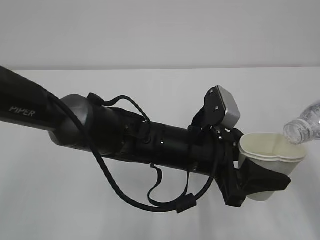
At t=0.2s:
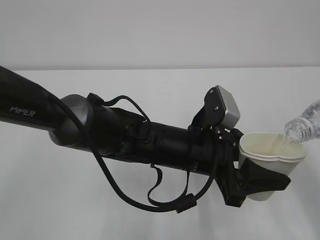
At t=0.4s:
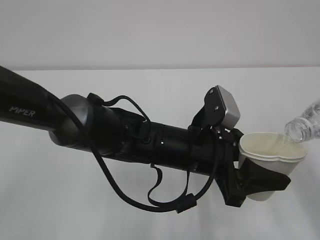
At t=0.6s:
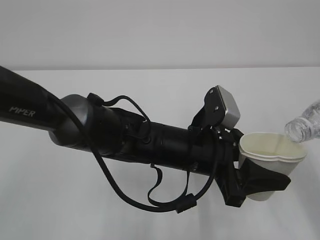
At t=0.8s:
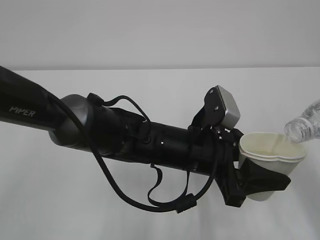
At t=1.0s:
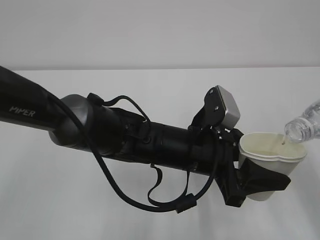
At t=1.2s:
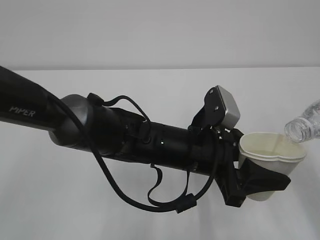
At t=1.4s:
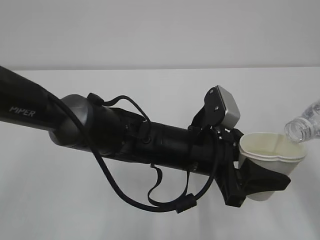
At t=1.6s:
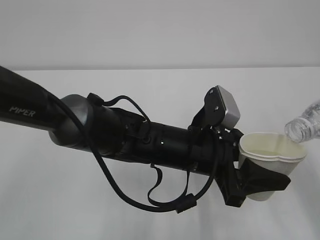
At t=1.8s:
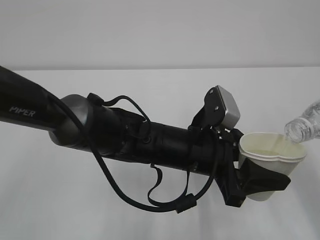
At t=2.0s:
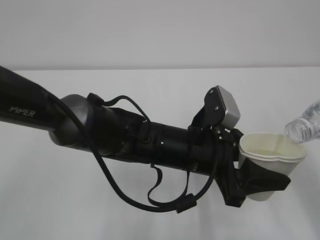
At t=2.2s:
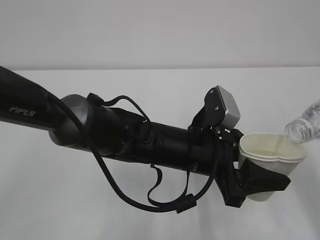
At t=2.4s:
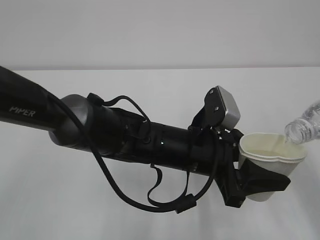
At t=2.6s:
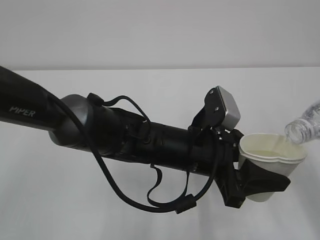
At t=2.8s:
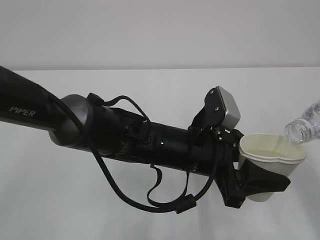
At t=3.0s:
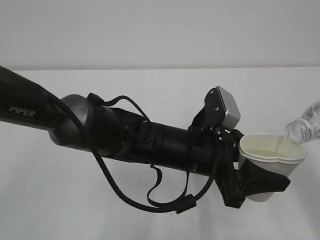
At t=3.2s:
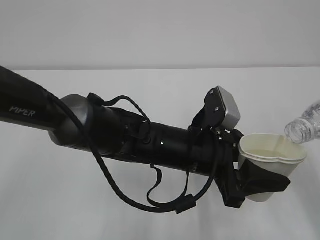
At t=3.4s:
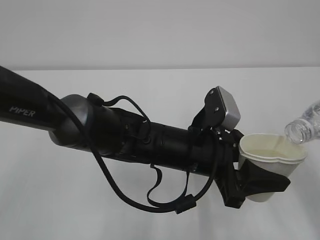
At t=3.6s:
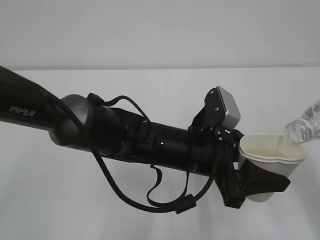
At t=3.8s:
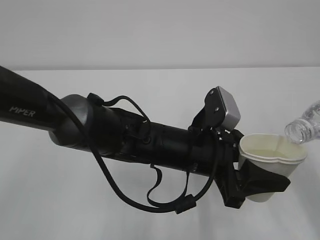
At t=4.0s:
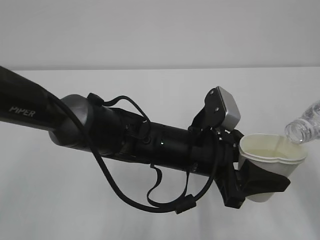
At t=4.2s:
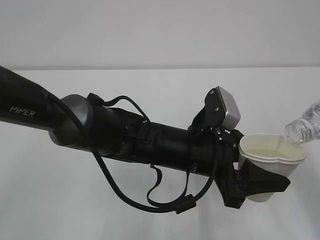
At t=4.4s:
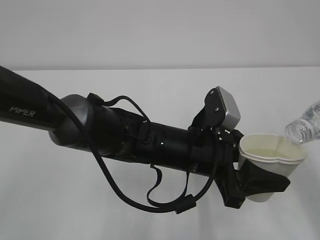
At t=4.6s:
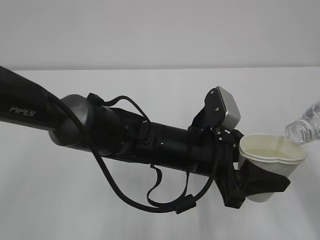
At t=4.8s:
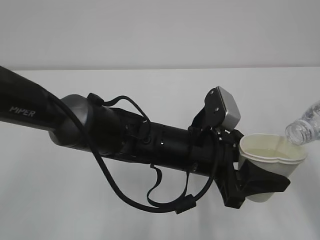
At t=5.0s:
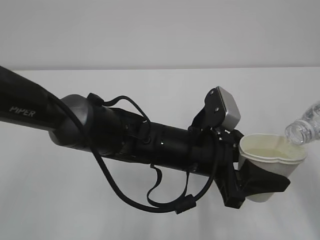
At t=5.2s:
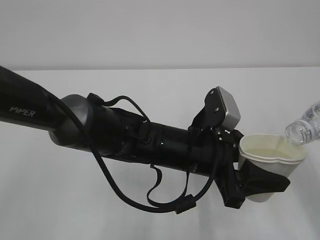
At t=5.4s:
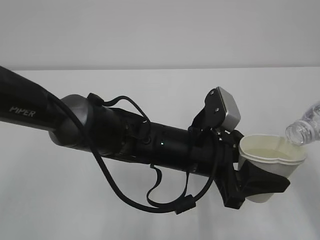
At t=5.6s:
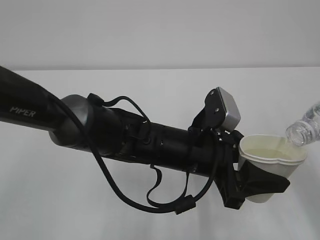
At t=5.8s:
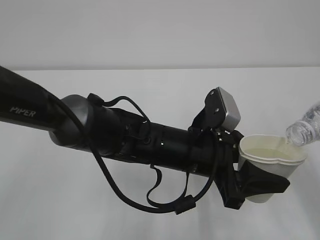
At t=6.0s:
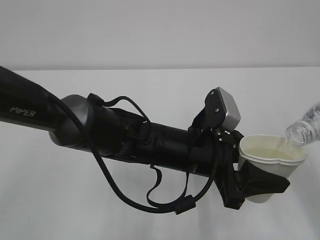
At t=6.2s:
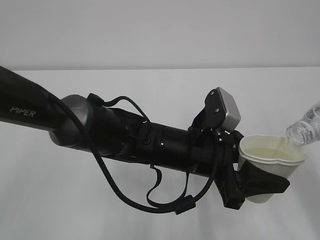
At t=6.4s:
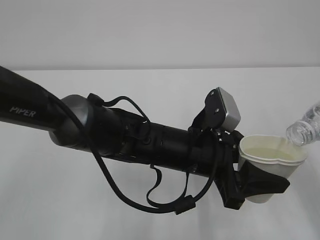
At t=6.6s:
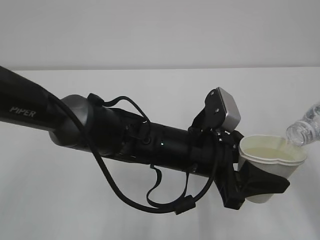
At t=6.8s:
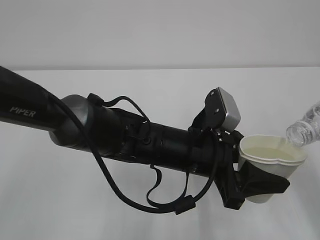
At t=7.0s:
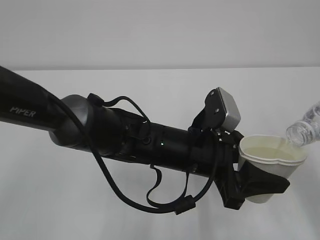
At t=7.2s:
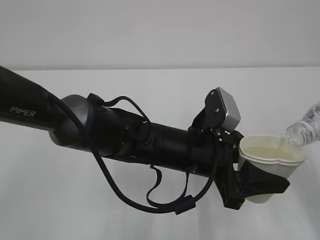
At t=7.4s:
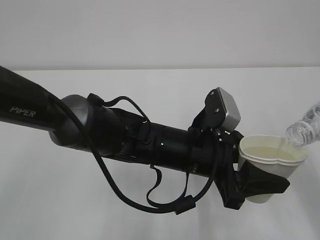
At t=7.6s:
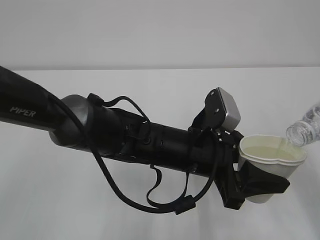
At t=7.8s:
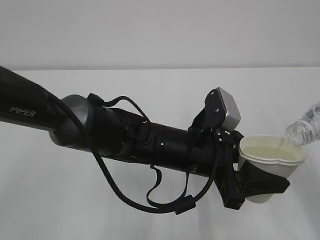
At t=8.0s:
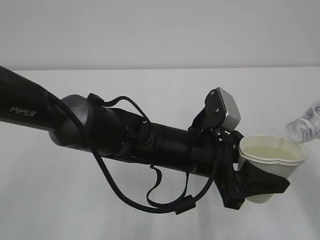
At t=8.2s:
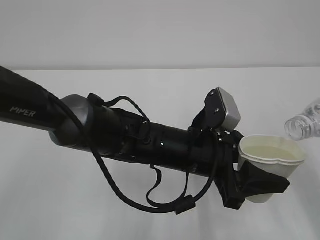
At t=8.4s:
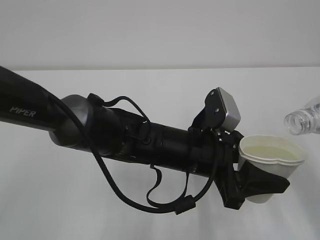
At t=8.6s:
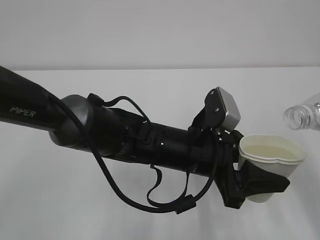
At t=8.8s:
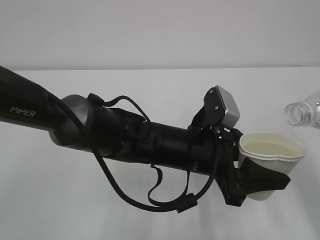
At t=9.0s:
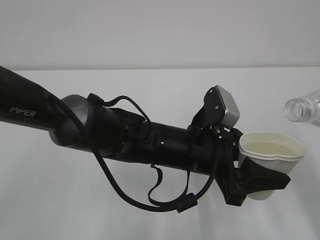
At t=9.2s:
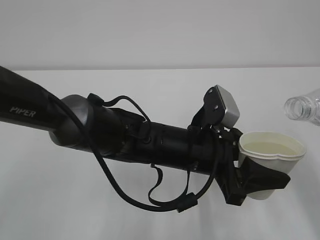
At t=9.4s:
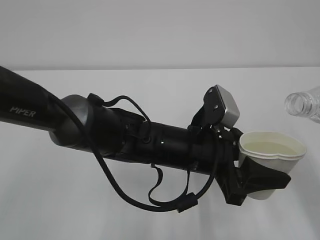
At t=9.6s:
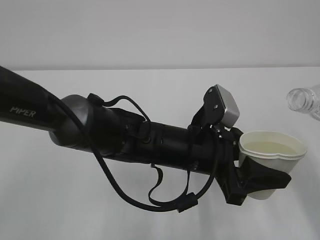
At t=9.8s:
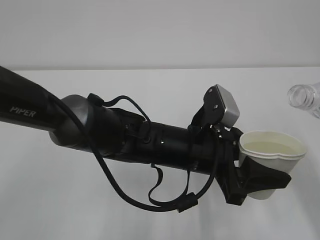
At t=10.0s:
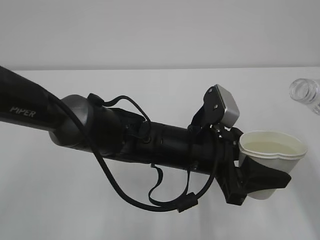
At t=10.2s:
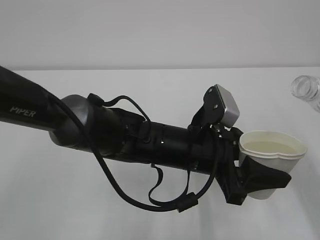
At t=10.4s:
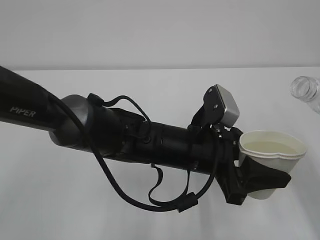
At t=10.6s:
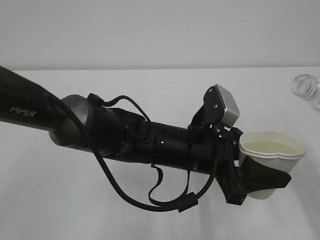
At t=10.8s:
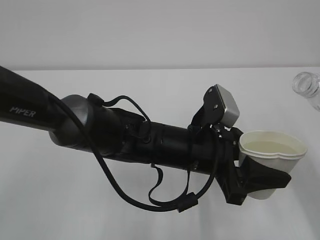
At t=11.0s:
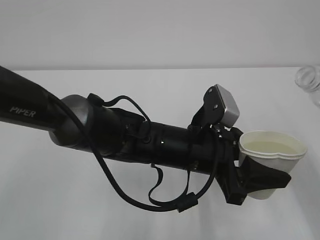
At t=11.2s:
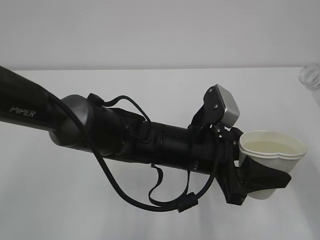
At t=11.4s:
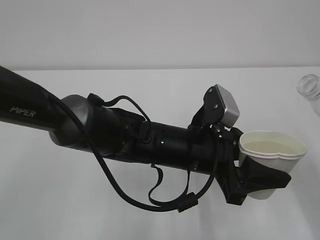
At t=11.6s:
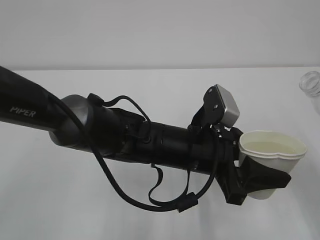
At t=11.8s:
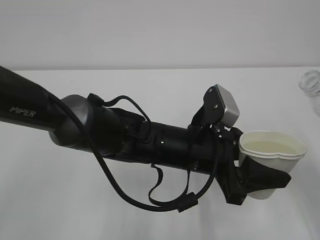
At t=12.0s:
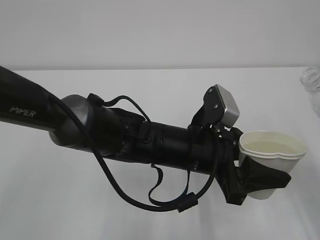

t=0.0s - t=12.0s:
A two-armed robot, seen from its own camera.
t=0.0s - t=7.6s: Both grippers stay put.
t=7.6s - t=9.0s: The grippers stay close to where they were, moving slightly.
t=9.0s - t=10.4s: The grippers stay close to where they were, moving slightly.

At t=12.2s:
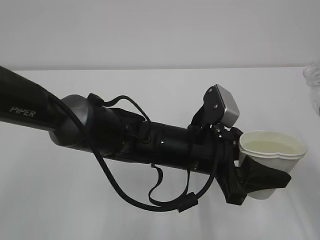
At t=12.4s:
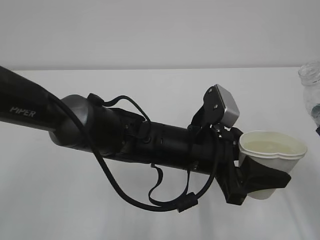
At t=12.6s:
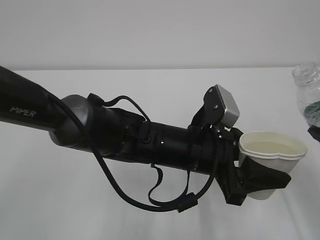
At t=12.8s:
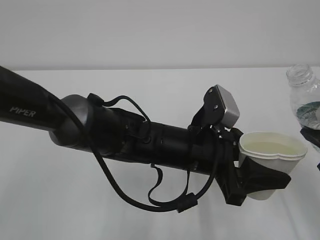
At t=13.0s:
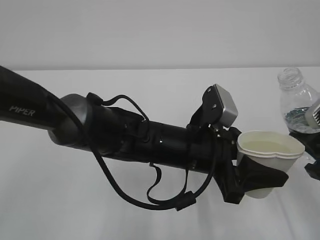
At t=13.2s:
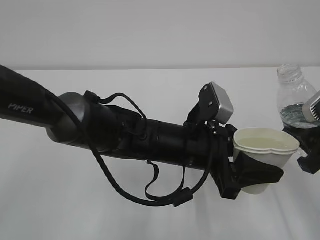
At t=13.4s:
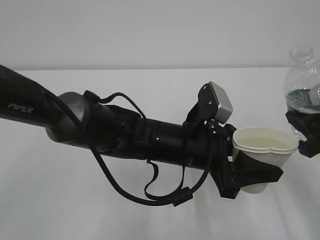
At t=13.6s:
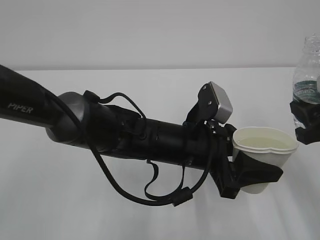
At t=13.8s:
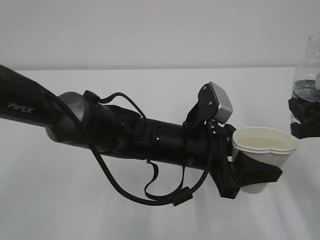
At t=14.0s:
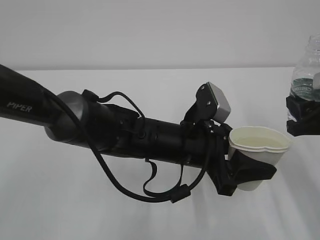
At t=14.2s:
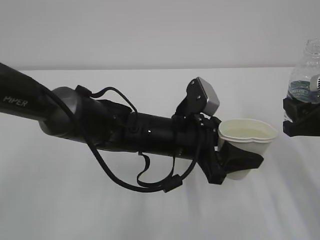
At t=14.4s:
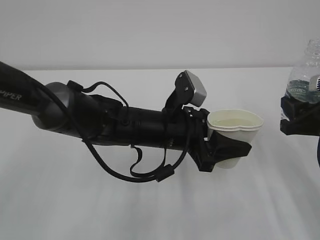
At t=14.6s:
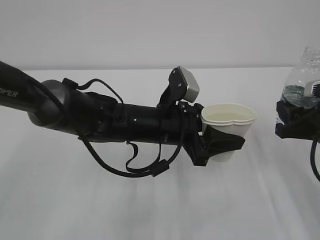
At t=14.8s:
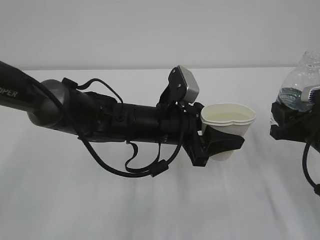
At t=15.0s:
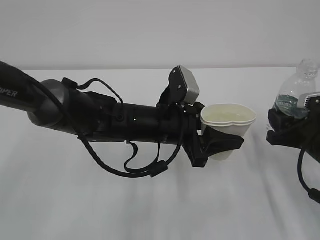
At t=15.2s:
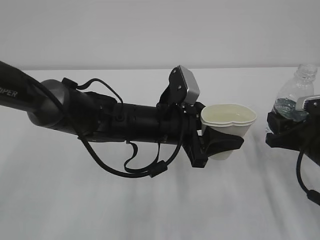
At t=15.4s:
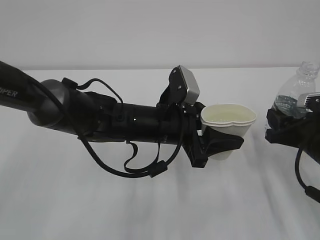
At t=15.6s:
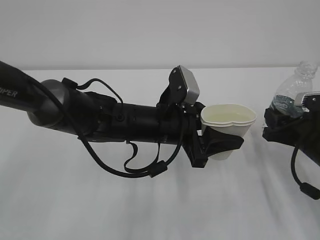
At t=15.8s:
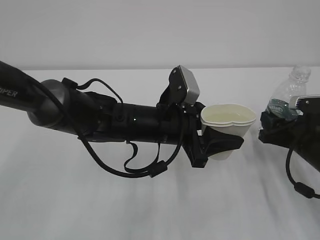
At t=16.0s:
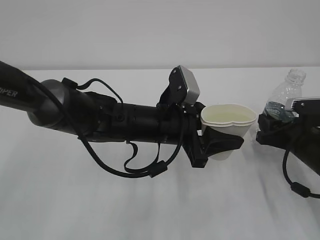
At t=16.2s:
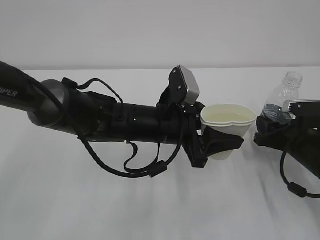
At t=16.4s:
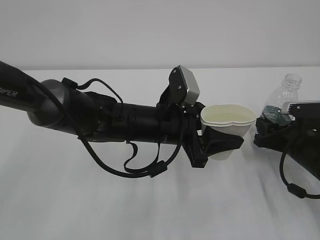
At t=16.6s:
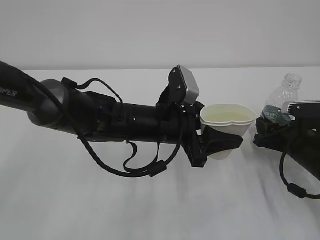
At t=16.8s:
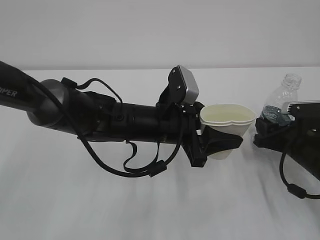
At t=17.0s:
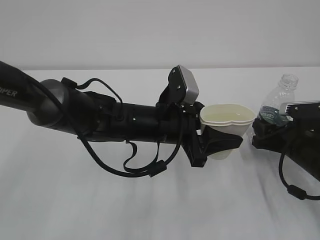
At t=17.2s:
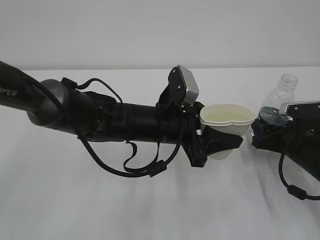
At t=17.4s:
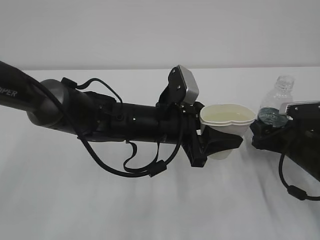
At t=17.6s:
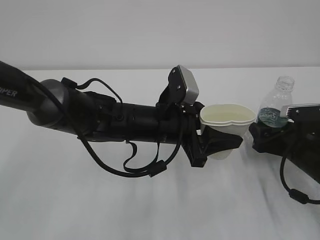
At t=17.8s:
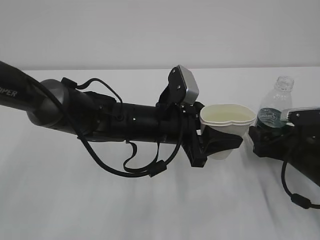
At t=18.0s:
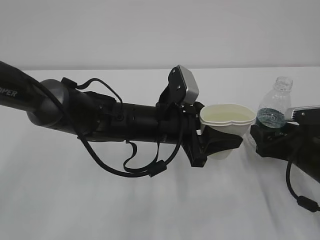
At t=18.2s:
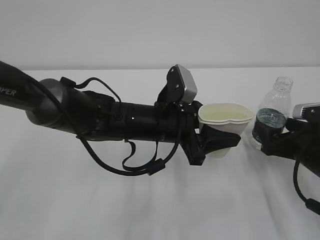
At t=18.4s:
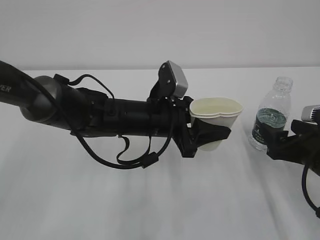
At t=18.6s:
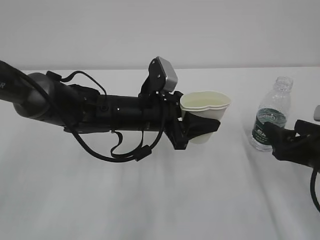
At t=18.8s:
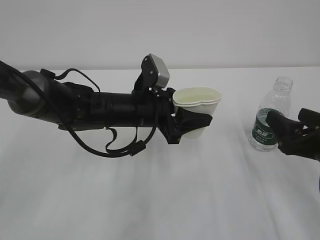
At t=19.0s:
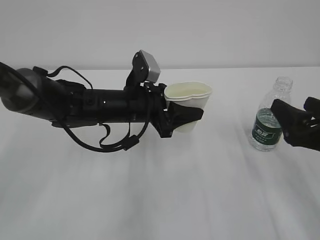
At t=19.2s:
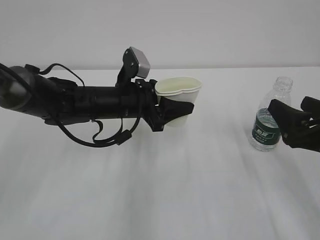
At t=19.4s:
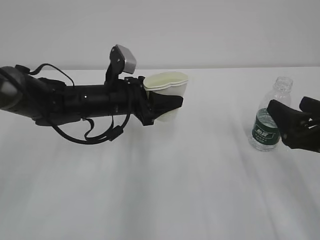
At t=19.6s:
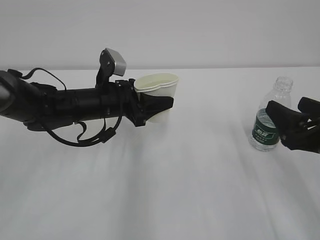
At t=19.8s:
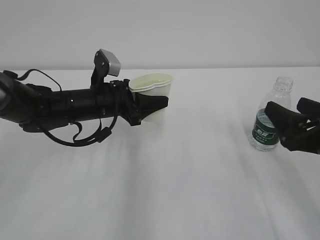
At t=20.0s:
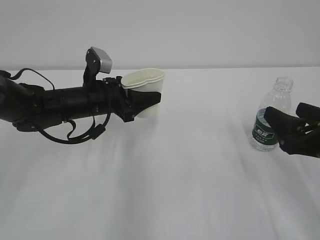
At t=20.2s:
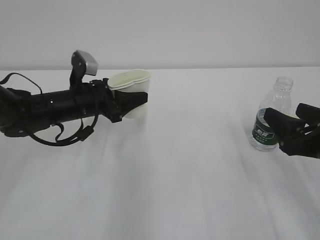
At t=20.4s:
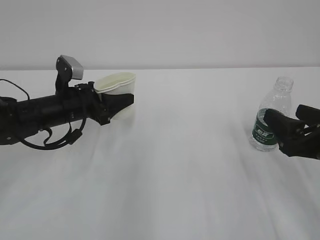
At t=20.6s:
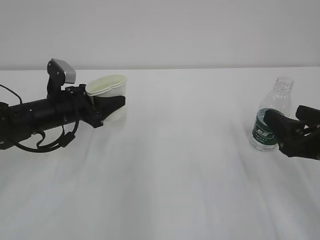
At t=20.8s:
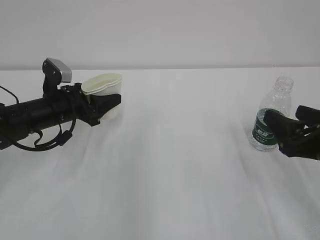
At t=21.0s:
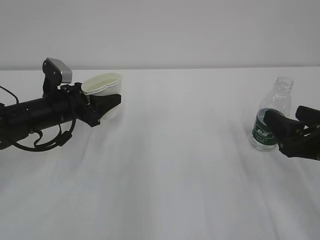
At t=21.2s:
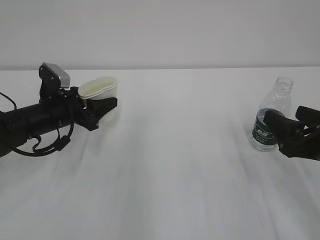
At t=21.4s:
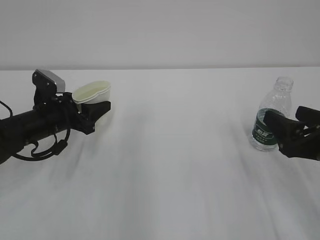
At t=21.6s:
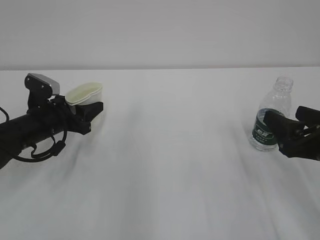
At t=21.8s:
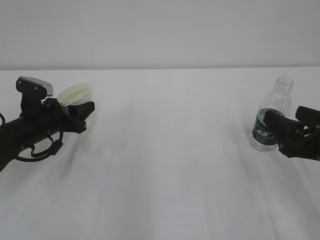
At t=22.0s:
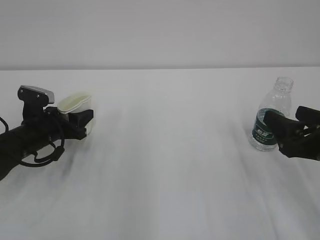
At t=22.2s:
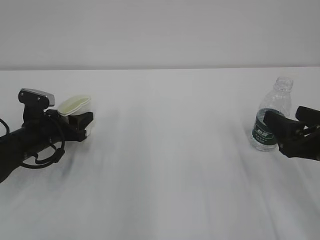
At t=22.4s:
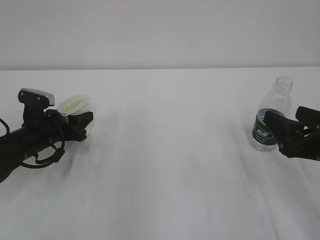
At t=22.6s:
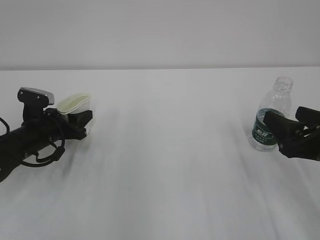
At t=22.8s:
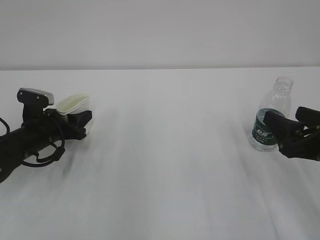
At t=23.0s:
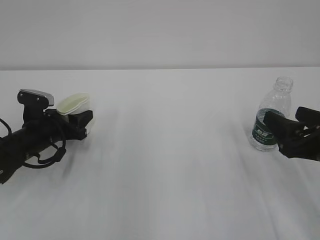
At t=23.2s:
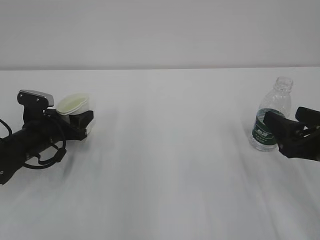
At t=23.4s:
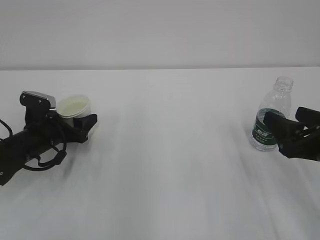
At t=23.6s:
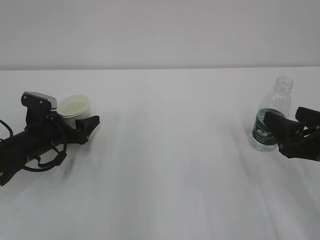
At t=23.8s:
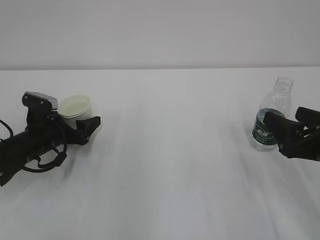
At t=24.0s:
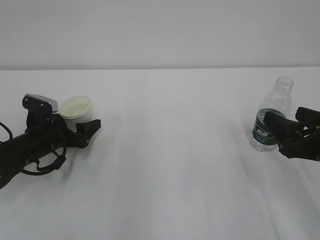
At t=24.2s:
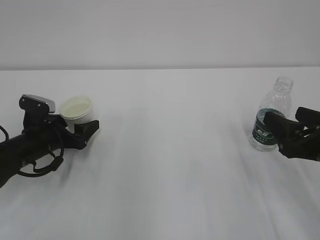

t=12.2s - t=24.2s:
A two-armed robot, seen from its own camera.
t=12.2s - t=13.8s: The right gripper goes some 5 cm forward.
t=13.8s - t=15.2s: The left gripper ends up some 5 cm from where it was. The right gripper shifts some 10 cm downward.
t=15.2s - t=16.6s: There are only small adjustments of the grippers.
t=16.6s - t=18.2s: The right gripper opens up.
t=18.2s - t=19.8s: The left gripper shifts approximately 15 cm to the left and forward. Meanwhile the right gripper shifts some 10 cm upward and backward.
t=19.8s - t=21.2s: The left gripper is displaced to the left by approximately 10 cm.
t=21.2s - t=22.6s: The left gripper moves some 5 cm.
t=22.6s - t=24.2s: The left gripper opens.
